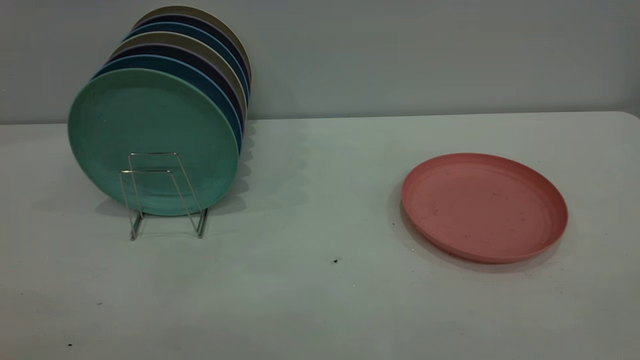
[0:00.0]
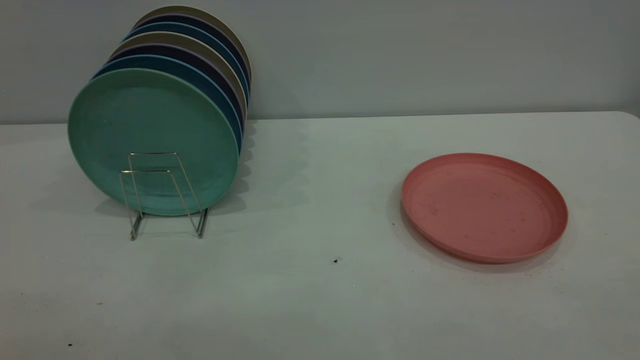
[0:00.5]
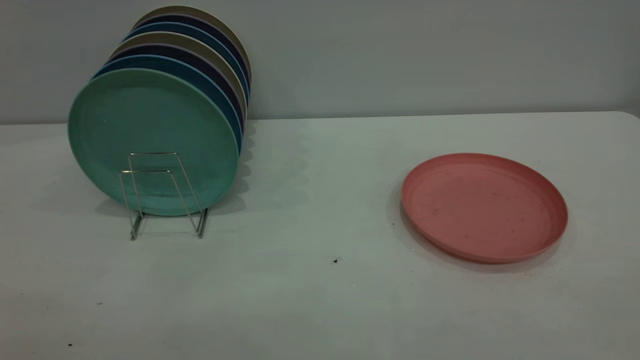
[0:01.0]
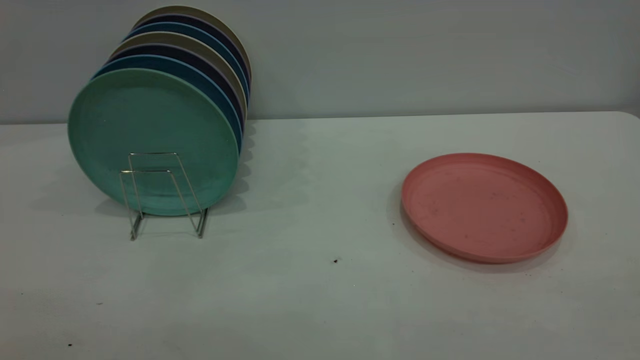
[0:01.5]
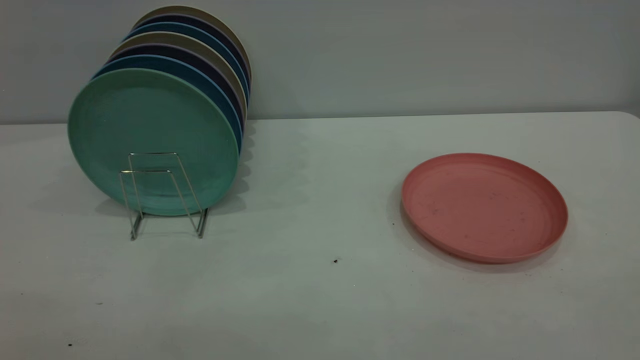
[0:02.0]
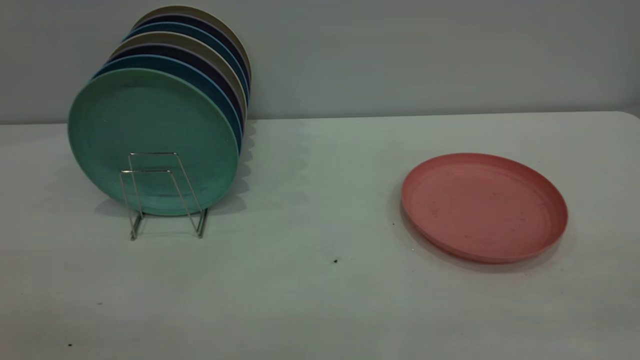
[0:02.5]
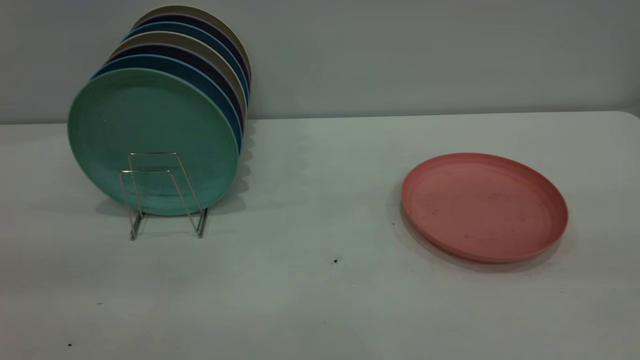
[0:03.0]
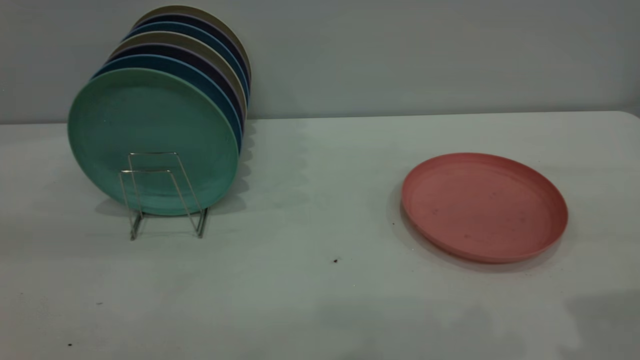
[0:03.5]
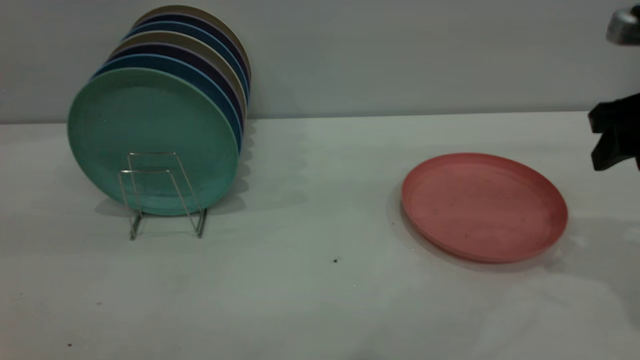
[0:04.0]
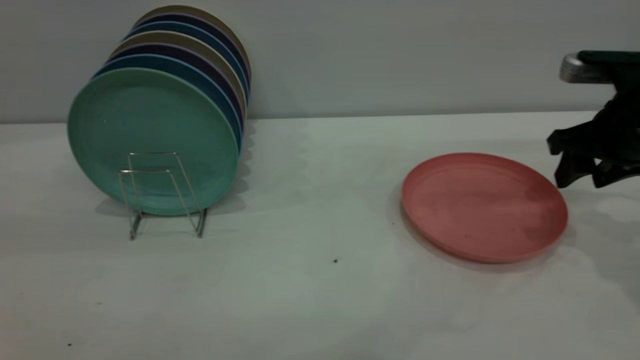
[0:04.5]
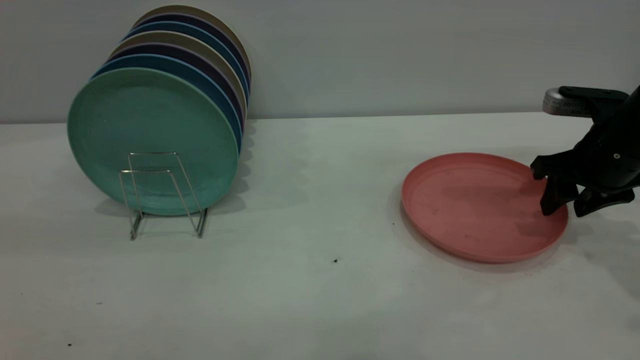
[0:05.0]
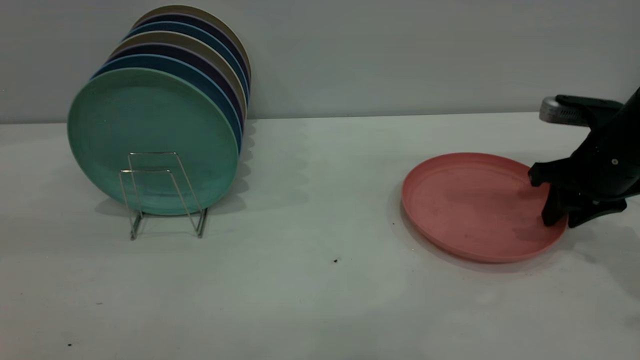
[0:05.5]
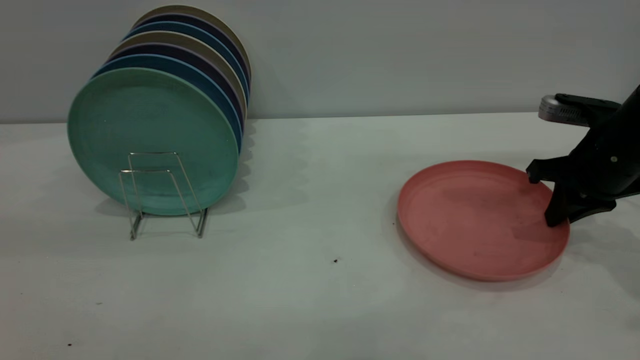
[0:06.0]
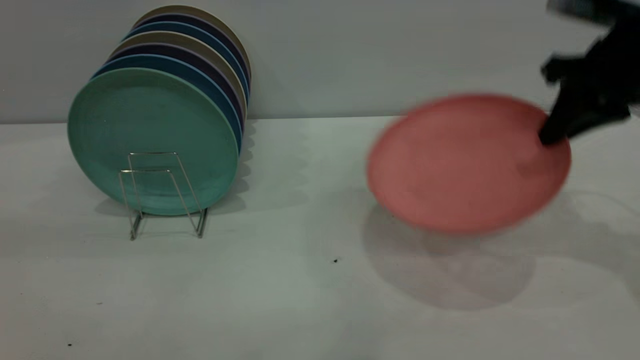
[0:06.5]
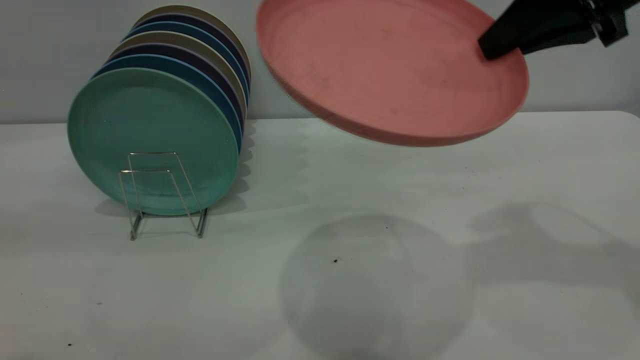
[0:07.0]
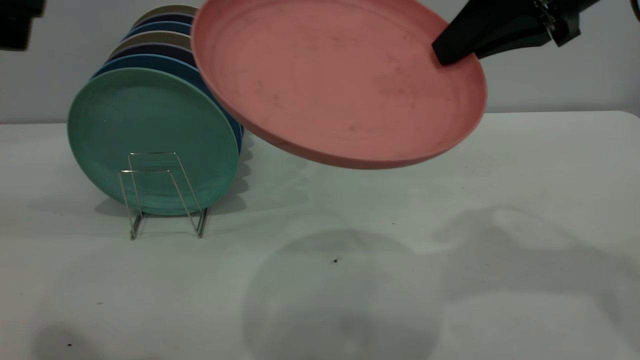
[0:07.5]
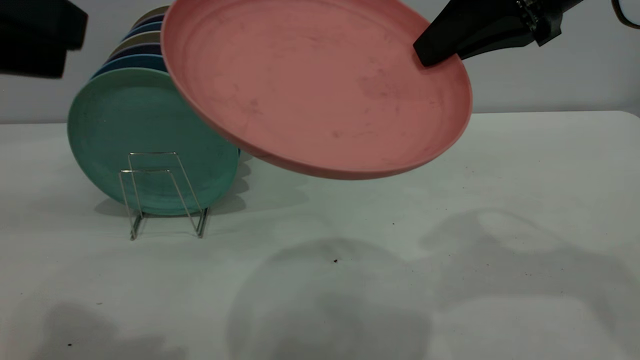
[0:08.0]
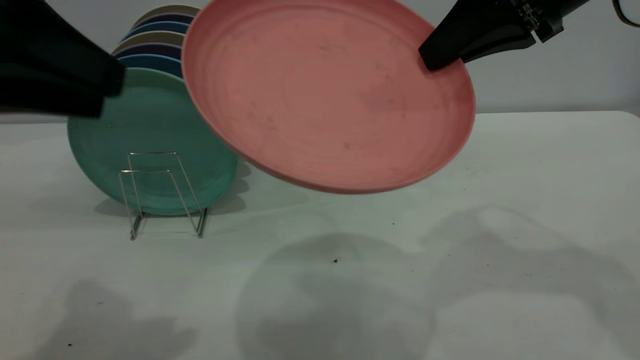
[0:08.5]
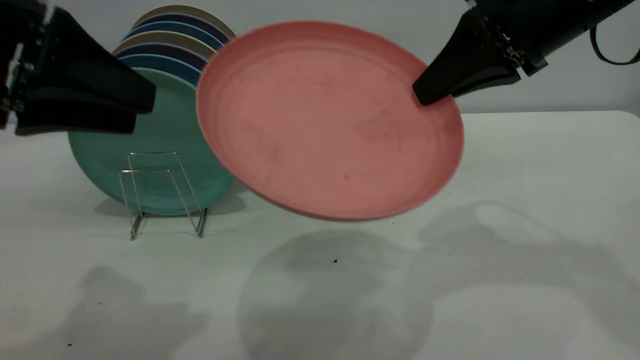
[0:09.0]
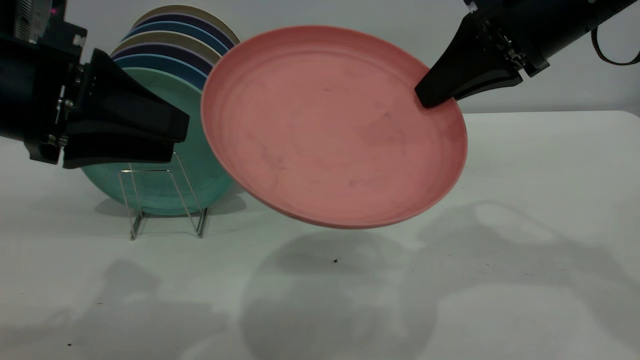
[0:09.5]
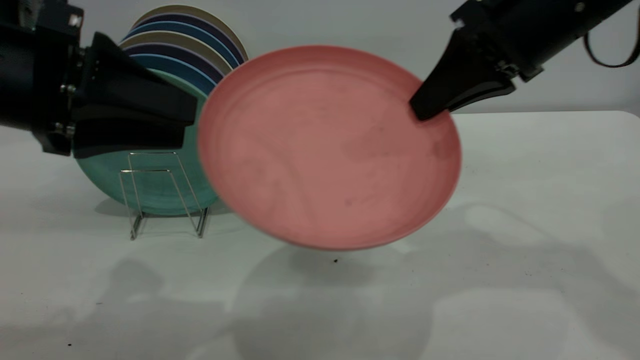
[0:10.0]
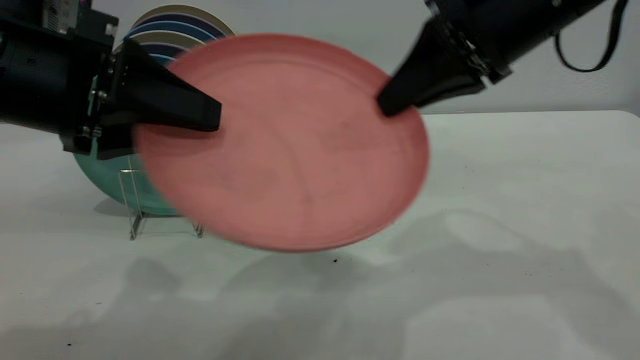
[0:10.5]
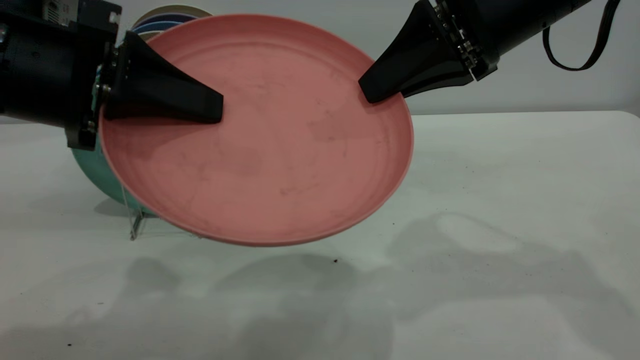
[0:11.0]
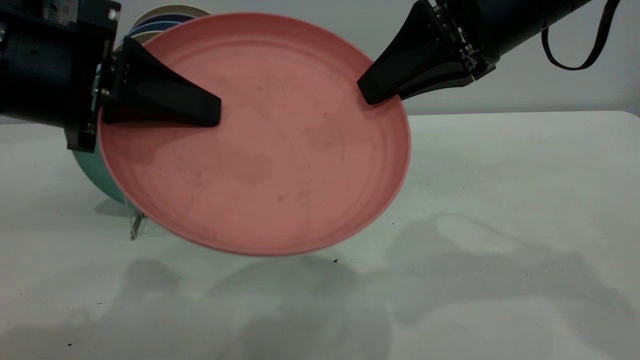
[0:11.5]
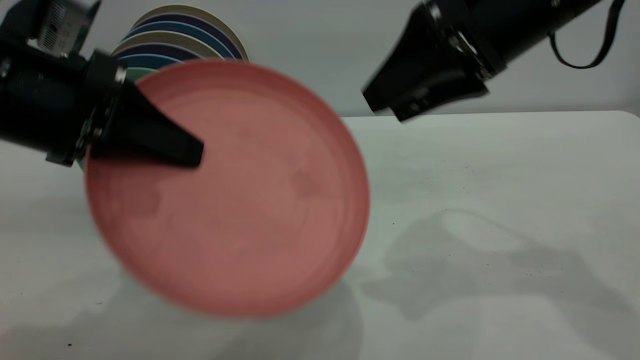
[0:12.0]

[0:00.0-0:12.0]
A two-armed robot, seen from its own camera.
Task of the whole recording: the right gripper grasp the pink plate, the right gripper pass the pink plate to the left gripper, and the left gripper place the pink plate on the plate rack.
Step, 0:00.0 to 0:06.5: Pick up the plate with the right gripper.
0:02.0 to 0:04.0: The right gripper shifts some 35 cm forward, and opens up.
0:04.0 to 0:06.0: The right gripper is displaced downward and forward by about 10 cm, and closes its fingers.
0:06.0 to 0:08.0: The right gripper travels upward and to the left by approximately 25 cm, while the left gripper moves forward, approximately 5 cm.
0:08.0 to 0:10.0: The left gripper travels downward and forward by roughly 10 cm.
0:10.0 to 0:12.0: The left gripper closes up; the right gripper opens up.

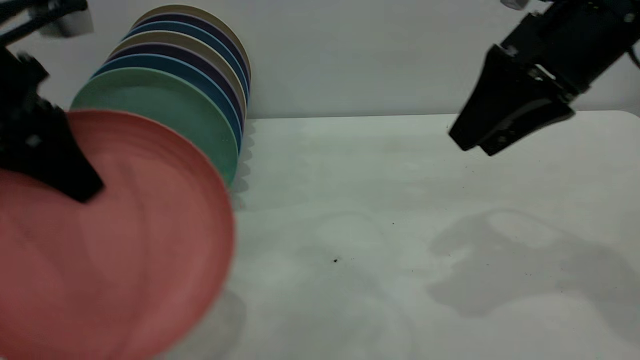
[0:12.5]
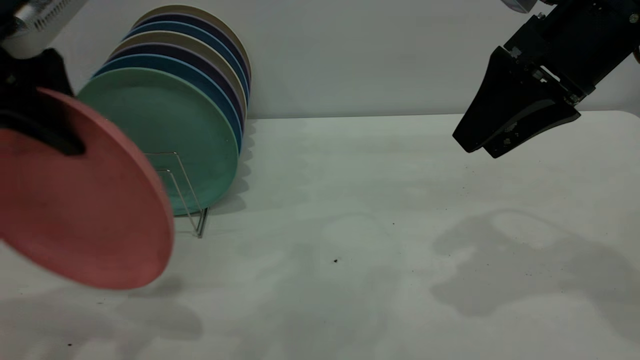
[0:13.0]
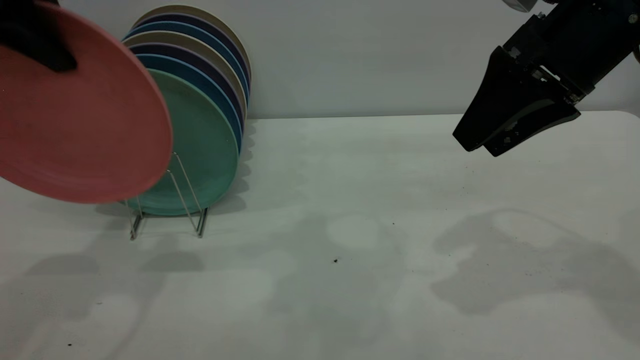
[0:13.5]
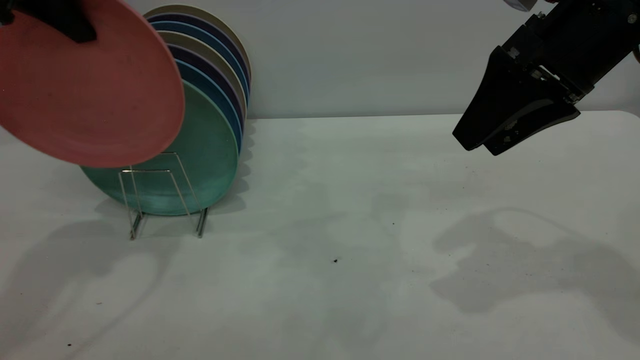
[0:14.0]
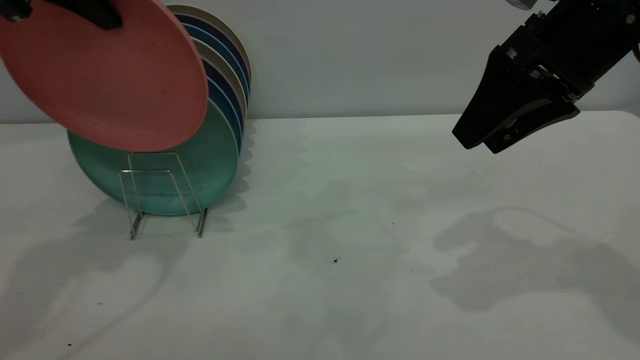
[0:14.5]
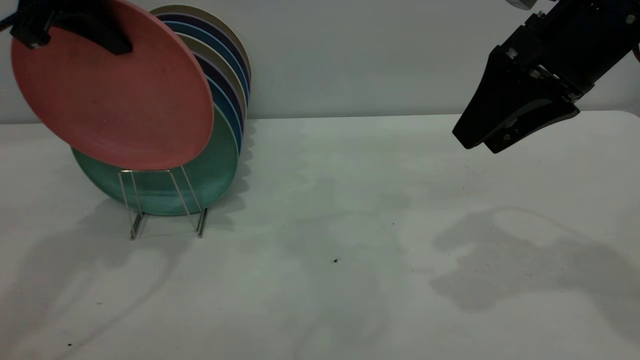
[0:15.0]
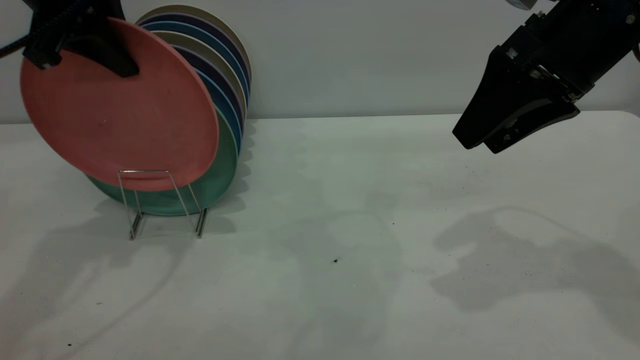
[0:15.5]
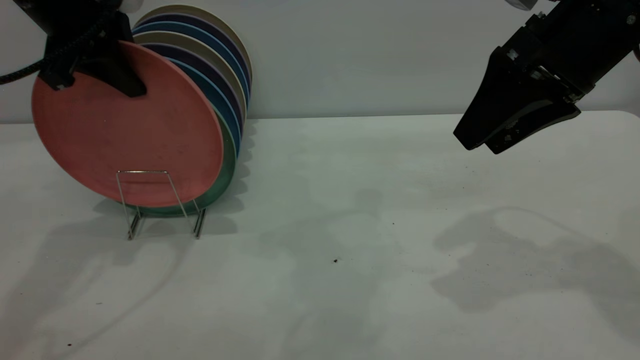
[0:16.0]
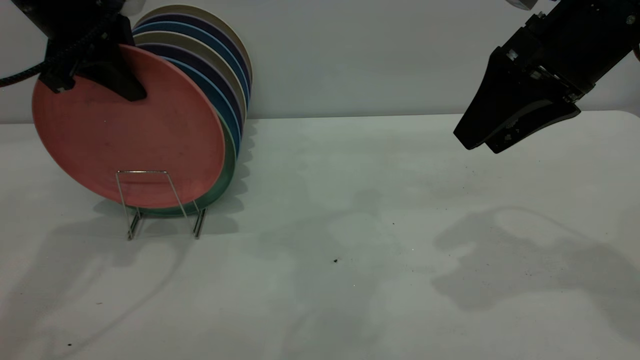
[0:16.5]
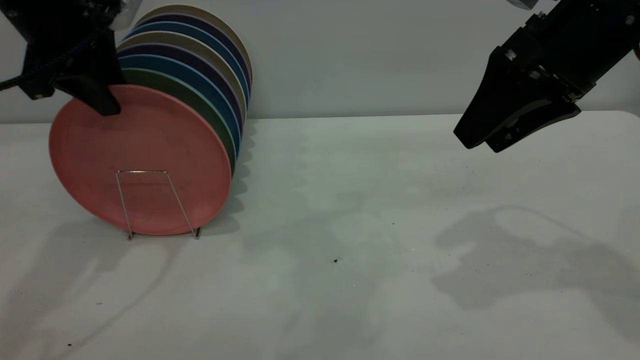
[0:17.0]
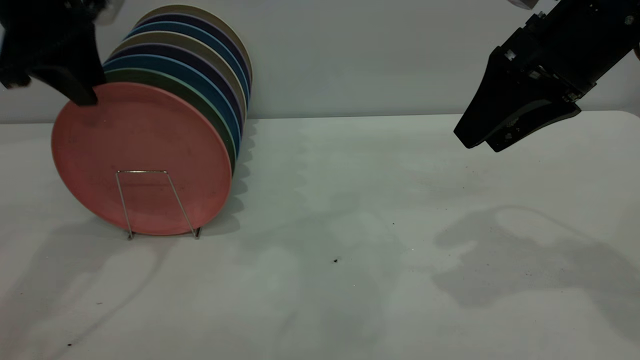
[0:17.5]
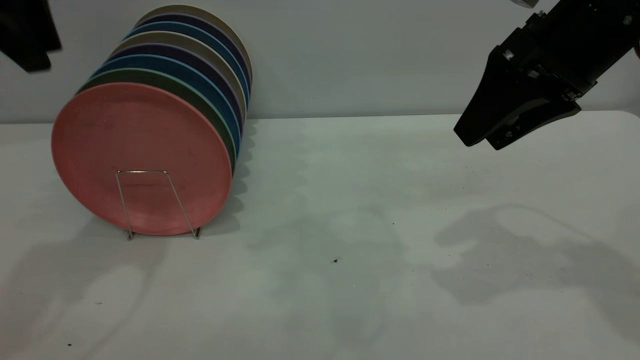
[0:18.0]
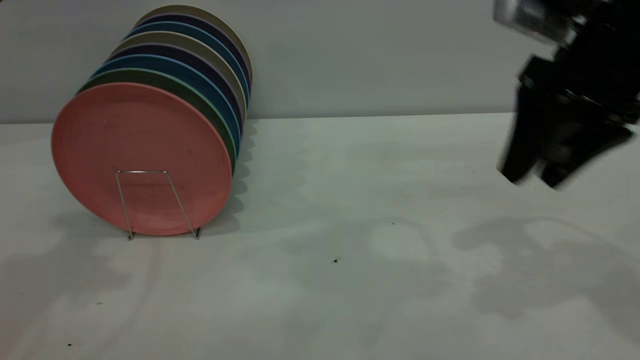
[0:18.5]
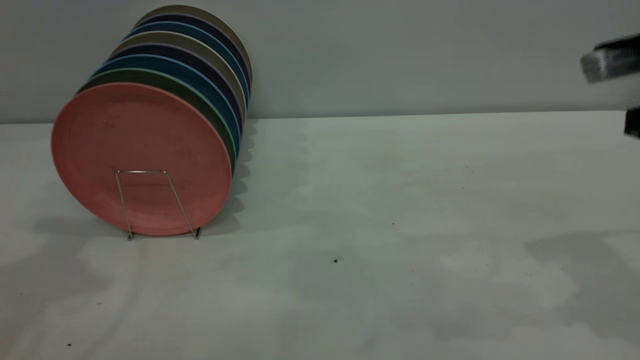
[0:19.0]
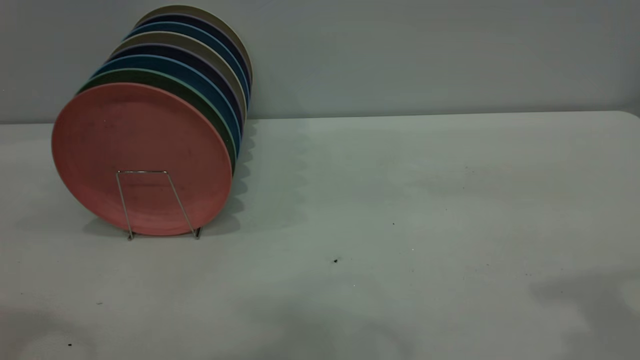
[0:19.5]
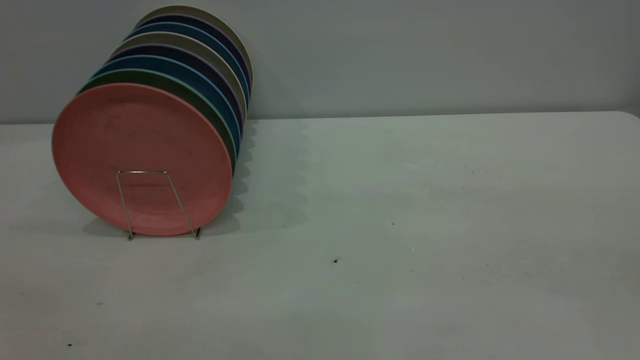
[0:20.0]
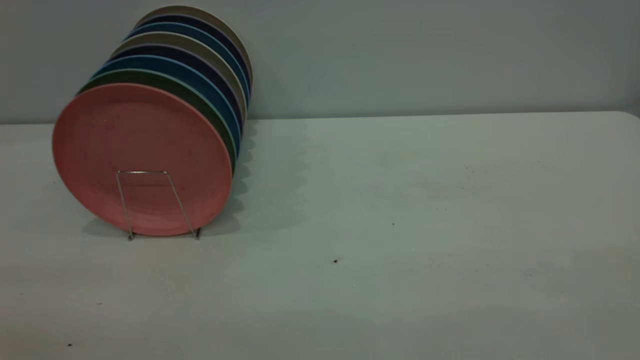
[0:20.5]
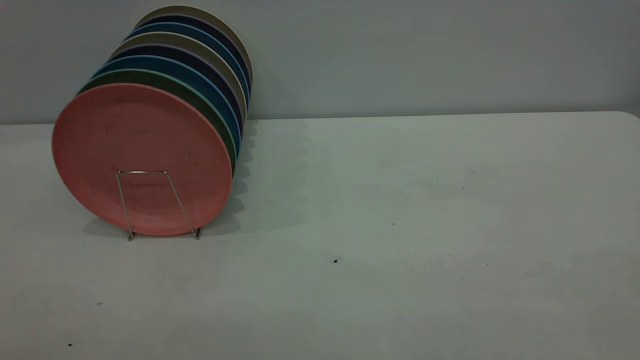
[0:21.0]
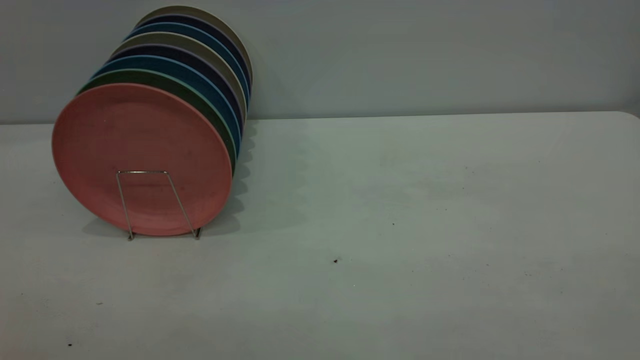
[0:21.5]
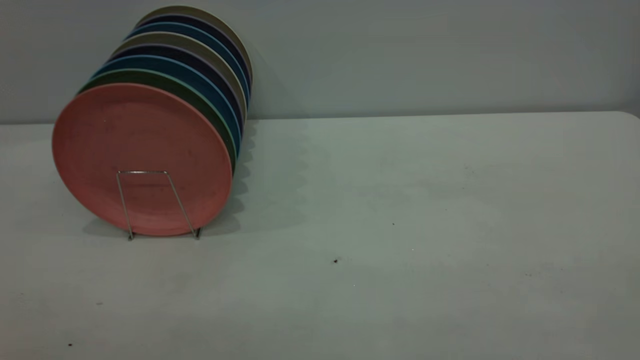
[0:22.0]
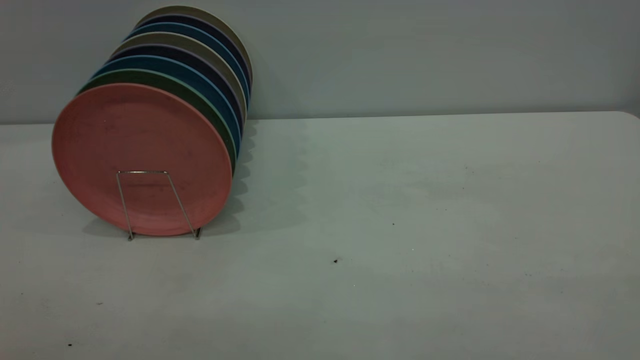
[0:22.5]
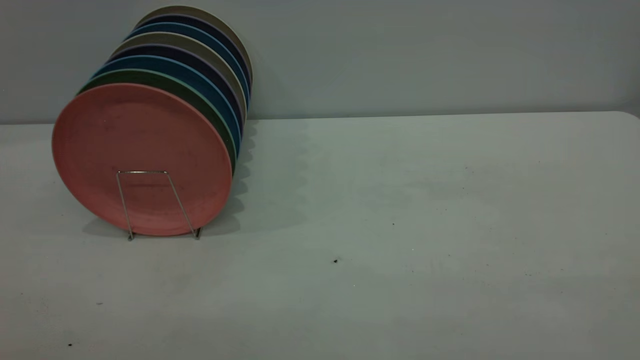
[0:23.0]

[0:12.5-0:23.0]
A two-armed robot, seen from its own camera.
Task of the whole recording: the right gripper grasp the pink plate, the right gripper pass the pink plate to the left gripper, and the left gripper place the pink plate on the plate rack.
Step, 0:14.0 to 0:18.0: Place the plate on the shelf.
0:12.5 to 0:14.5: The left gripper goes about 15 cm forward and upward.
0:14.5 to 0:16.5: The left gripper shifts some 5 cm downward, and opens.
0:16.5 to 0:19.0: The right gripper travels to the right by approximately 5 cm; the left gripper moves upward and backward, some 15 cm.
0:19.0 to 0:21.0: The right gripper heads backward, covering some 30 cm.
